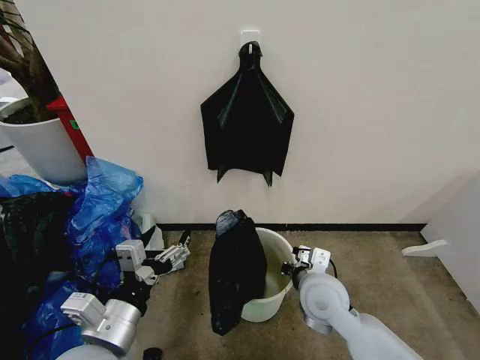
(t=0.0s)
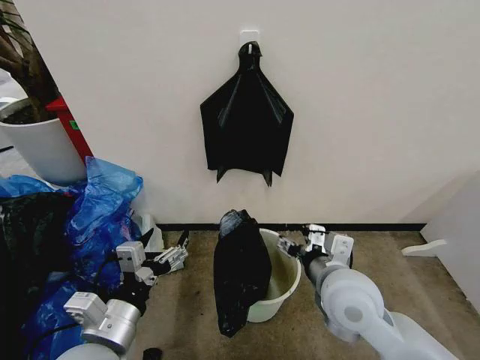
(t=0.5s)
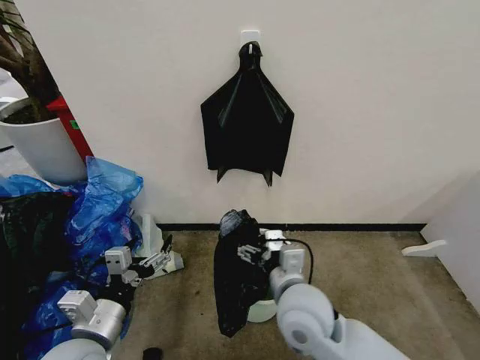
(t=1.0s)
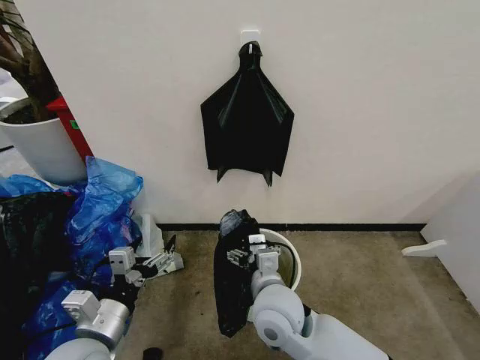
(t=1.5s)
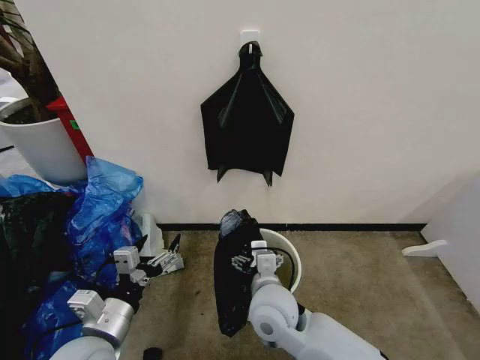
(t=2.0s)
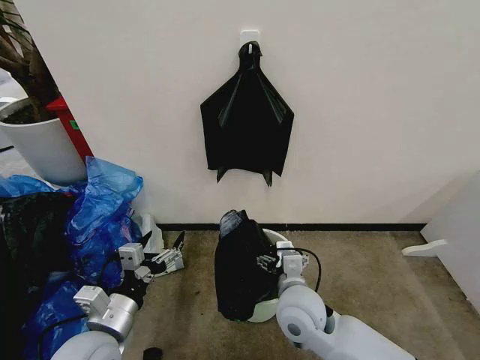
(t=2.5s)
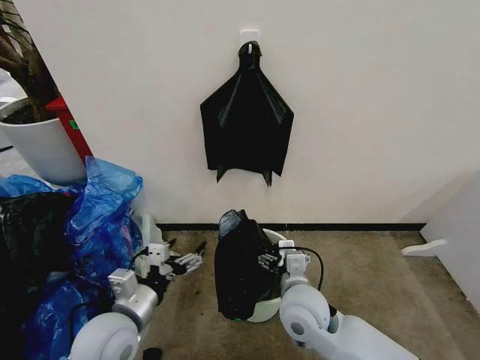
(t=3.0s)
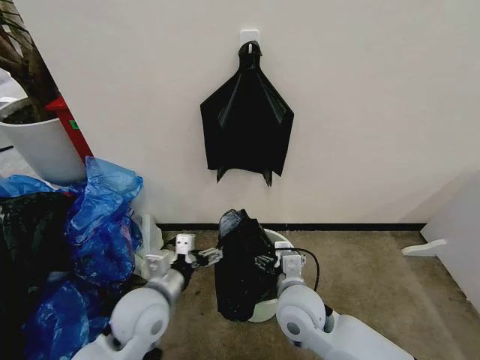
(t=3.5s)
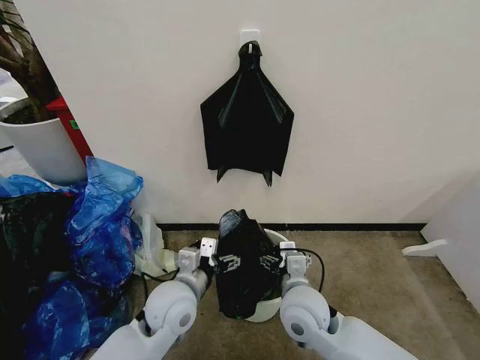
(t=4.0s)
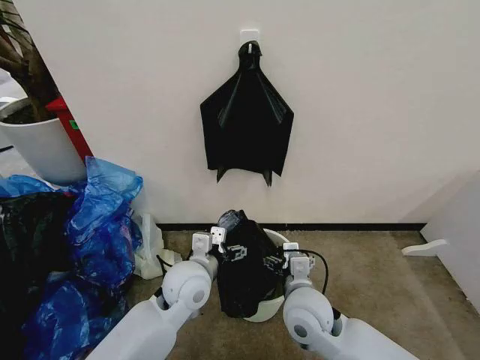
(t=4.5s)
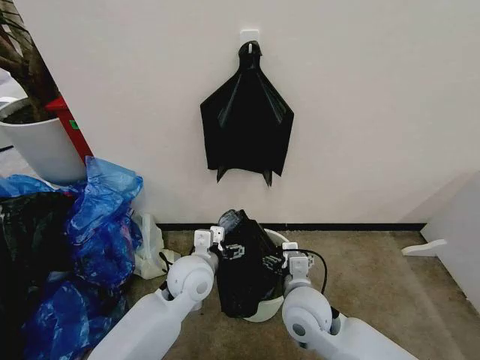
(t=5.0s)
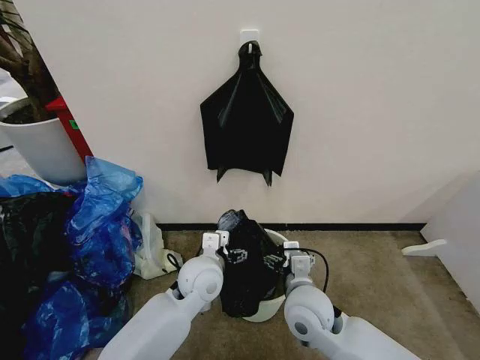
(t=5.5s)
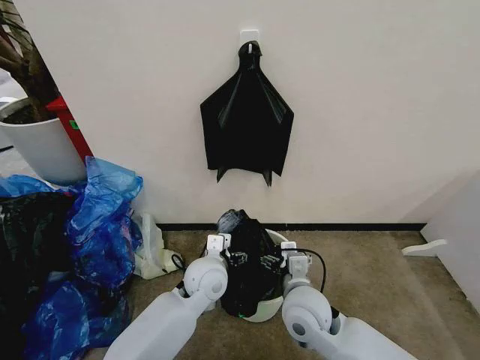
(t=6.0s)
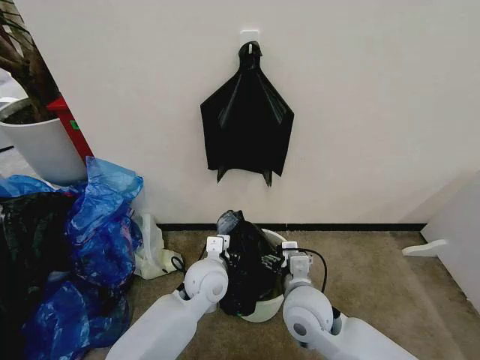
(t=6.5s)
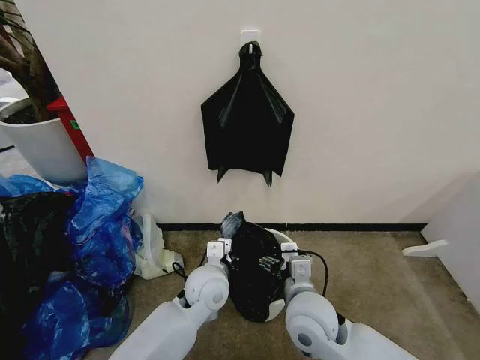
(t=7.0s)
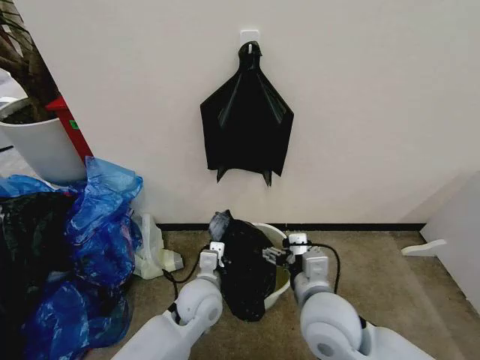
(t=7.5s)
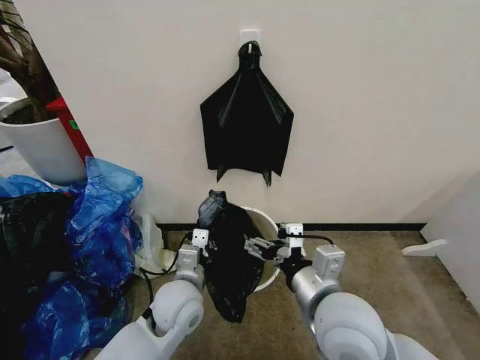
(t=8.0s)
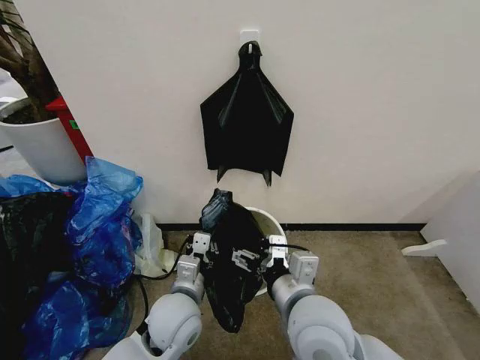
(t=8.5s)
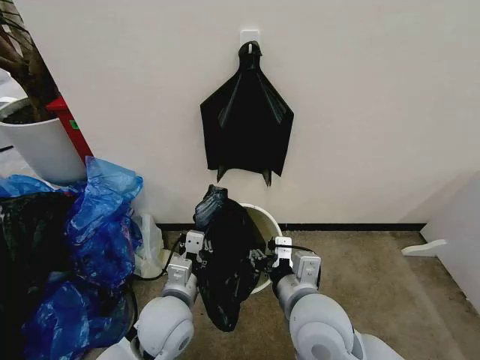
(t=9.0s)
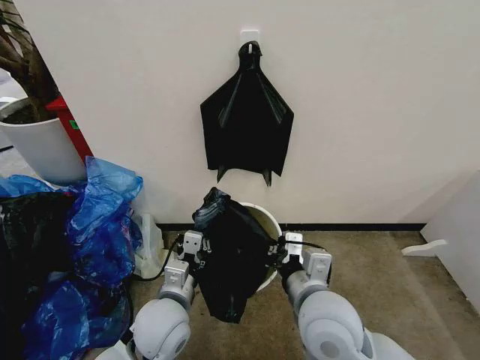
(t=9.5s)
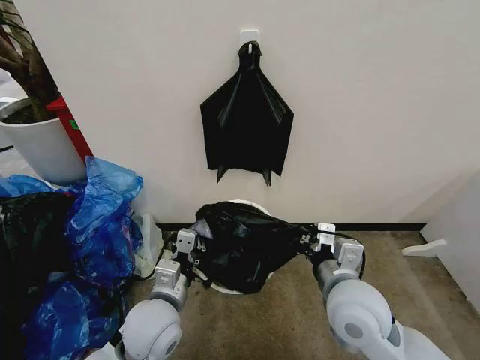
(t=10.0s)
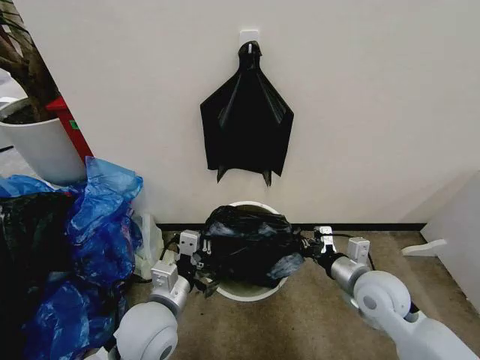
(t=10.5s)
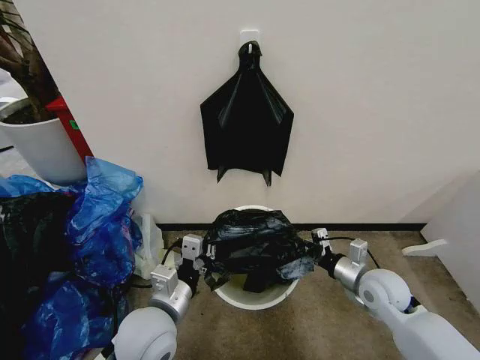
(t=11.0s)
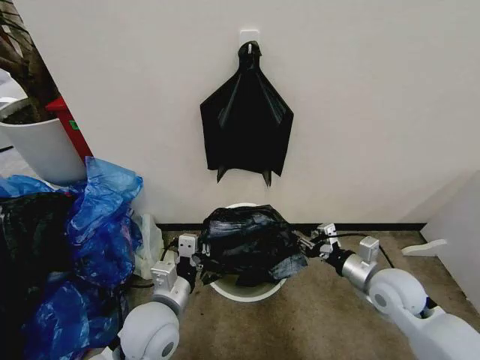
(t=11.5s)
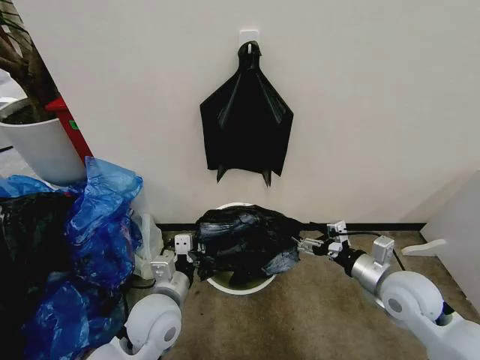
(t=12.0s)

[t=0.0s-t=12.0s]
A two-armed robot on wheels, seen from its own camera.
Task of the whole recording: Place the garbage bag over the trash bin.
t=0.0s to t=2.0s: The left gripper goes approximately 5 cm downward. Meanwhile the right gripper moves to the left, approximately 10 cm, and opens its fingers.
t=2.0s to t=4.0s: The right gripper goes about 5 cm to the right. Meanwhile the left gripper goes approximately 15 cm to the right and forward.
t=4.0s to t=6.0s: The left gripper heads forward and to the right, covering roughly 10 cm.
t=6.0s to t=8.0s: The left gripper goes roughly 5 cm backward, and closes up, while the right gripper moves upward and backward, about 15 cm.
t=8.0s to t=10.0s: The left gripper ends up approximately 5 cm from where it was. The right gripper ends up about 5 cm from where it was, and closes its fingers.
t=10.0s to t=12.0s: The right gripper goes some 15 cm to the right, and opens its fingers.

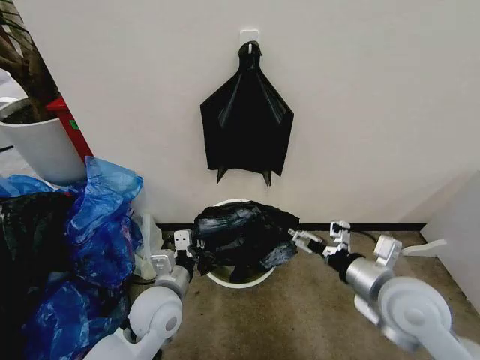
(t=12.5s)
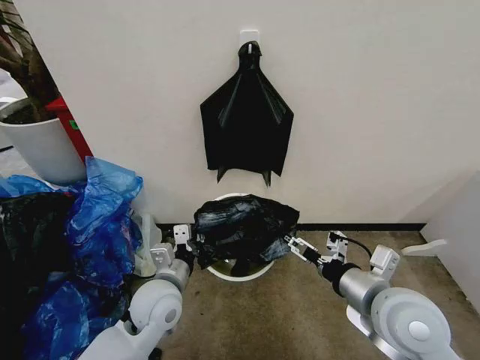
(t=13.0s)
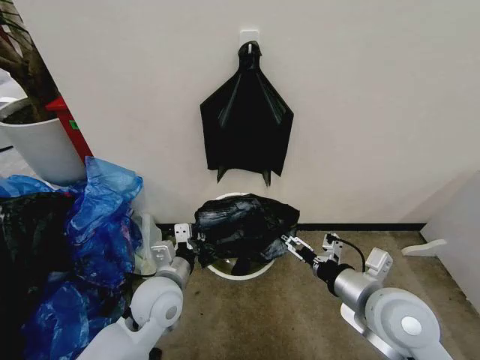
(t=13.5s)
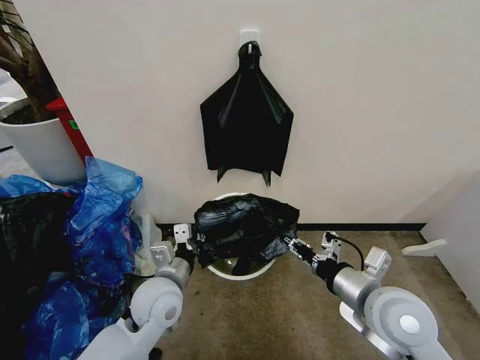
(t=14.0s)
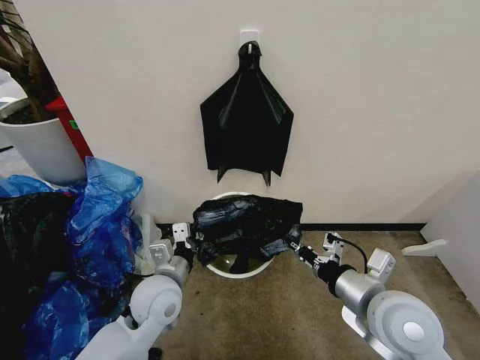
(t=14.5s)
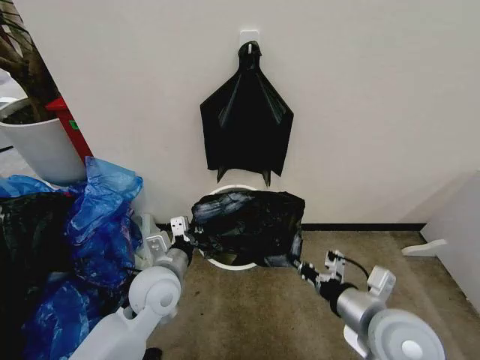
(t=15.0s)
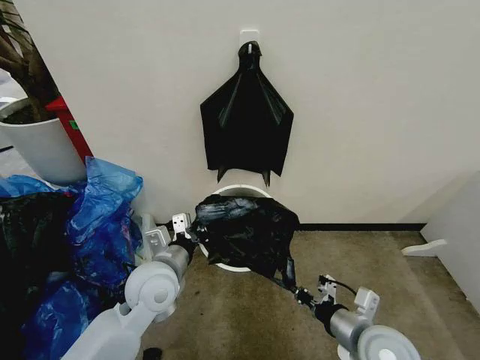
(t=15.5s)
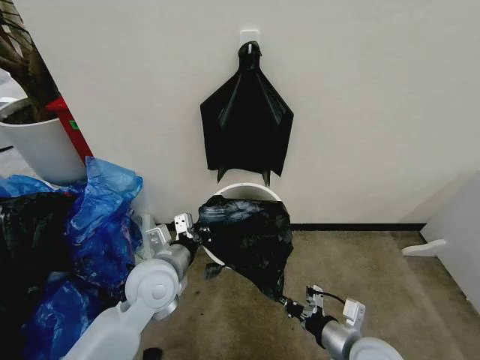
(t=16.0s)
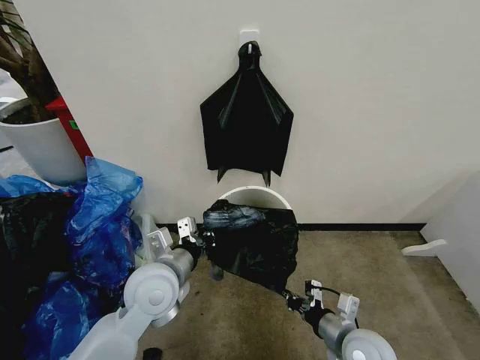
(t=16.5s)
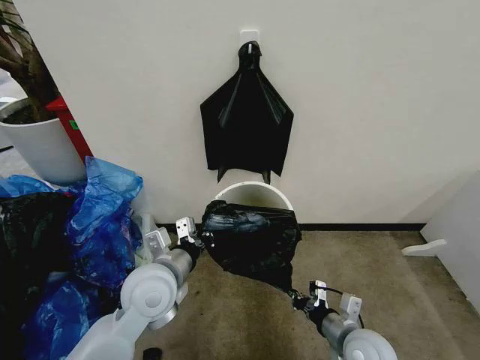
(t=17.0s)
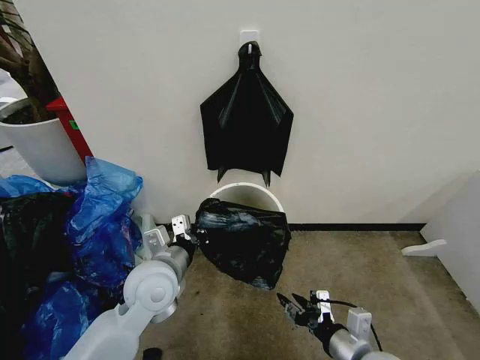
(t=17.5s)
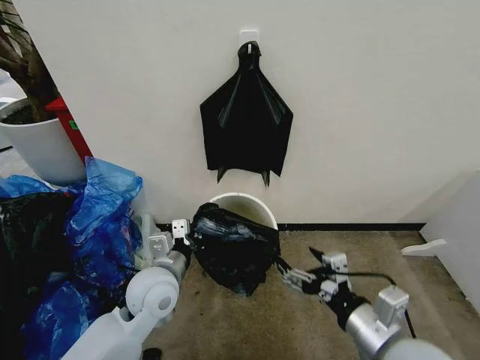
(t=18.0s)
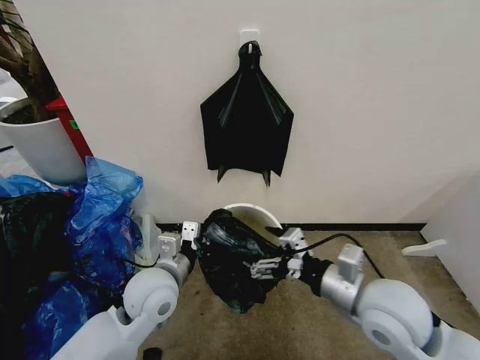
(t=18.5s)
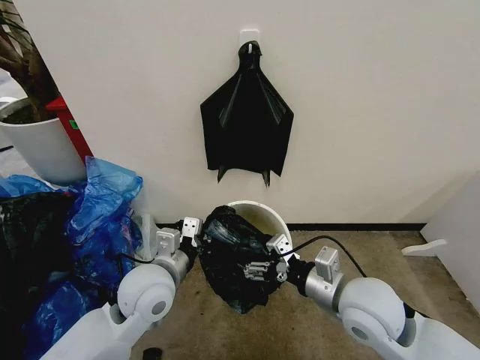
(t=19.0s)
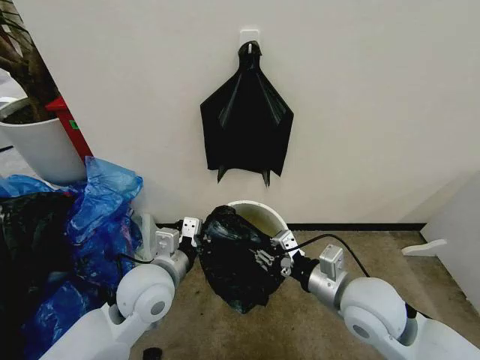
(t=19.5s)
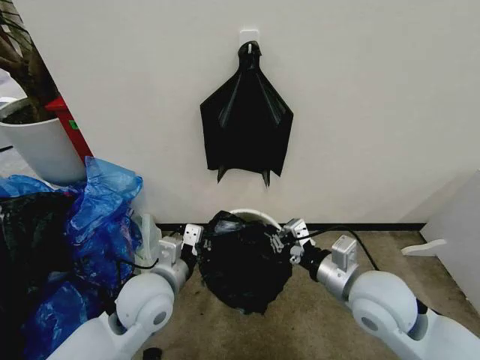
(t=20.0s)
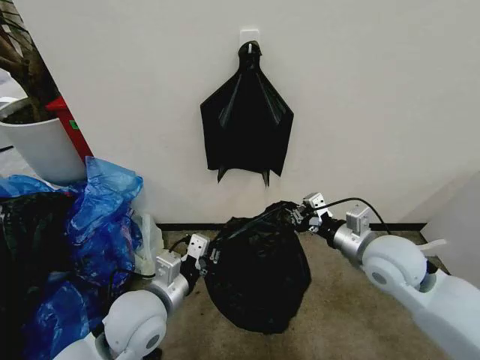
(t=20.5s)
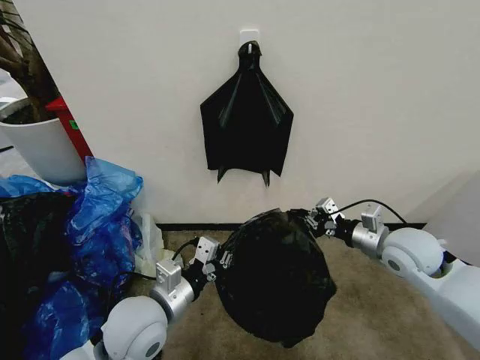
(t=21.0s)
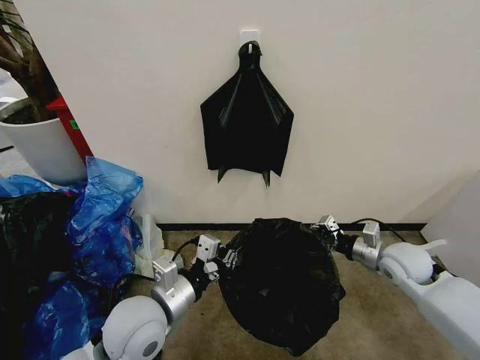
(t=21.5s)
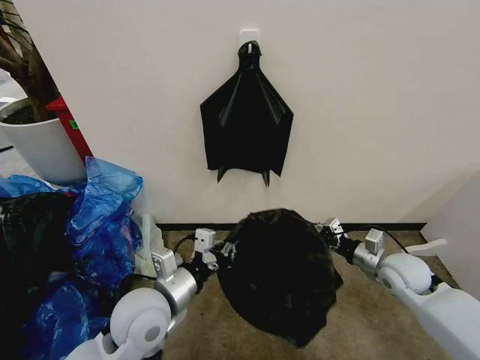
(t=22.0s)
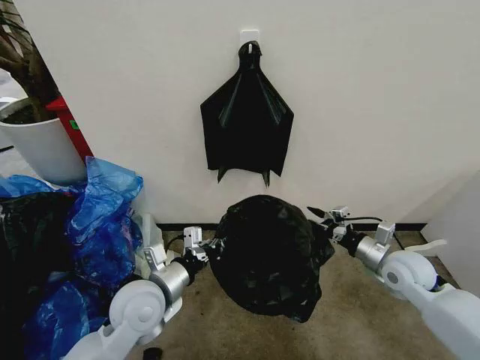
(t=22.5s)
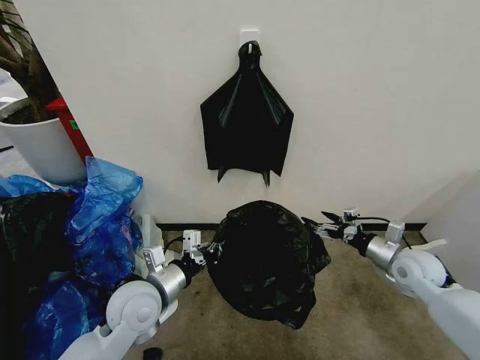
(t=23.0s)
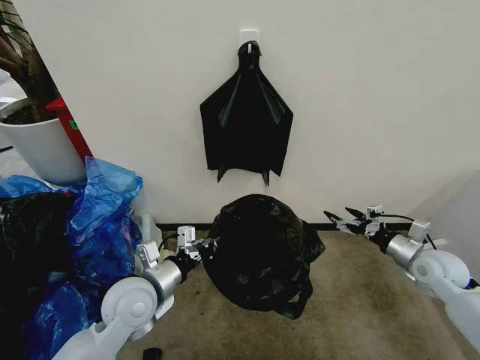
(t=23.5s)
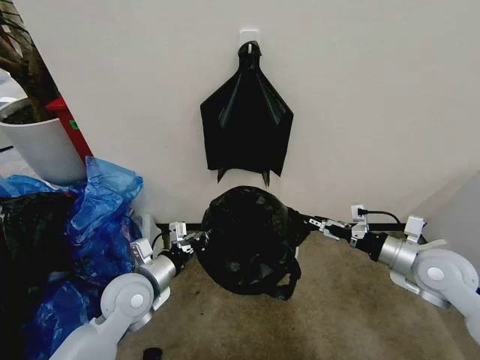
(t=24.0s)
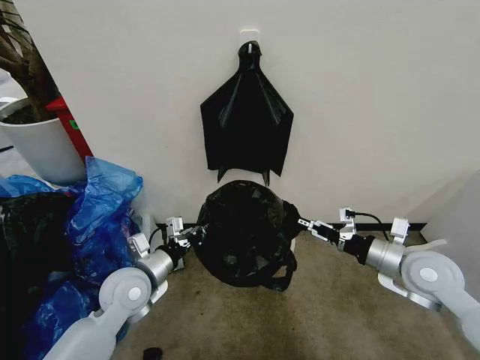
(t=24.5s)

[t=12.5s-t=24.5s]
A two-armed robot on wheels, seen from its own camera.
Task of the whole recording: Place the garbage bag over the trash bin.
t=12.5s to t=14.5s: The right gripper closes.
t=14.5s to t=16.5s: The left gripper is displaced upward by about 5 cm; the right gripper travels downward by approximately 15 cm.
t=16.5s to t=18.5s: The right gripper is displaced upward by about 15 cm, and opens.
t=18.5s to t=20.5s: The right gripper shifts approximately 10 cm forward, and closes up.
t=20.5s to t=22.5s: The right gripper travels downward and to the right by about 15 cm, and opens.
t=22.5s to t=24.5s: The left gripper changes place by about 5 cm; the right gripper travels upward by some 5 cm, and travels to the right and back again, about 10 cm each way.

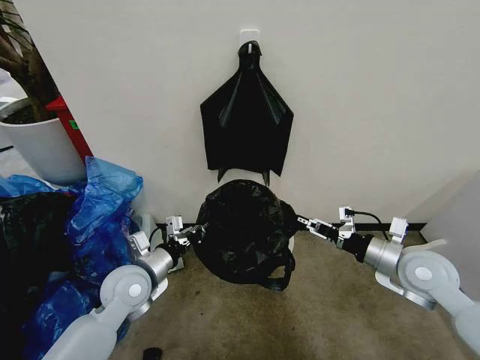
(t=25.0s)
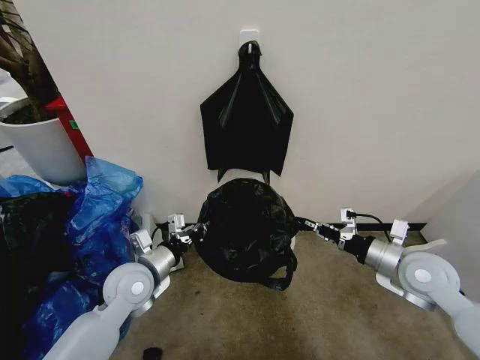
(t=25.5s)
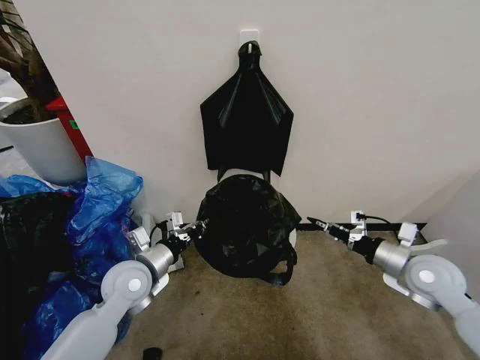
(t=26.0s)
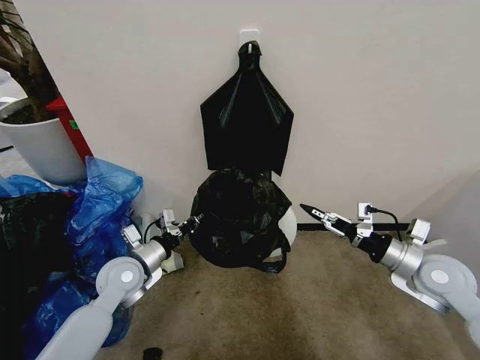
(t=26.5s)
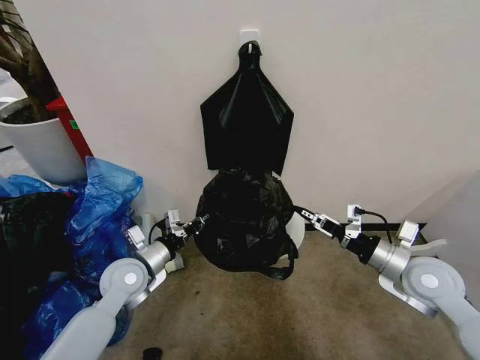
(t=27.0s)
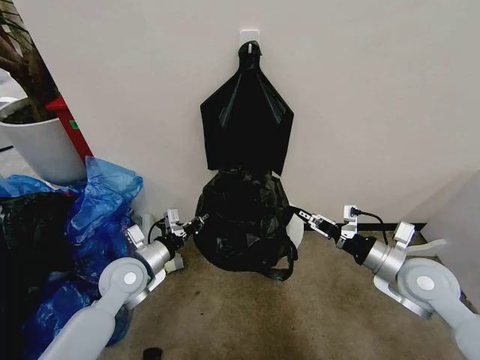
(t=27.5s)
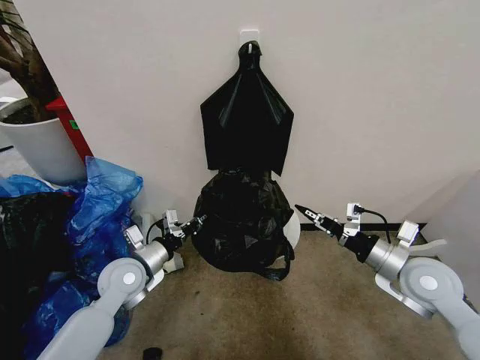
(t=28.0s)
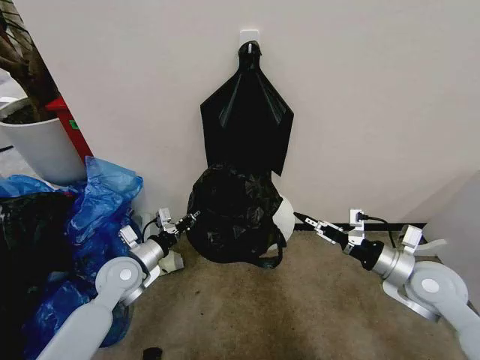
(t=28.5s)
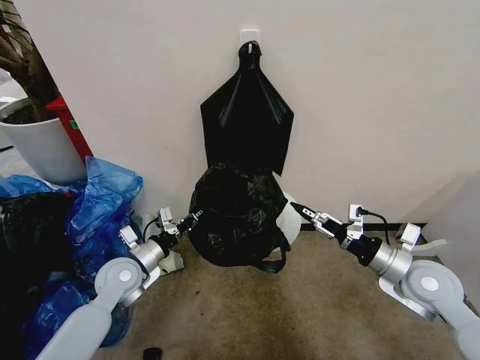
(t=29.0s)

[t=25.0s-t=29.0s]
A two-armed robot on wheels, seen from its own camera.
Task of the whole recording: Place the garbage bag over the trash bin.
t=25.0s to t=27.0s: The right gripper closes, then reopens.
t=27.0s to t=29.0s: The right gripper closes and opens again.
